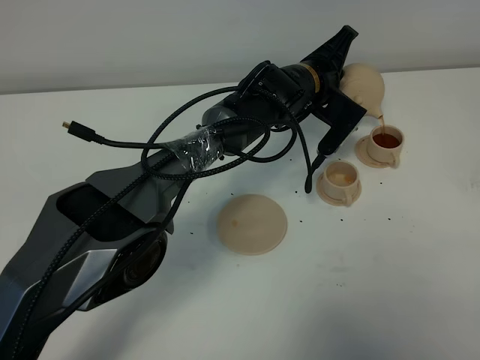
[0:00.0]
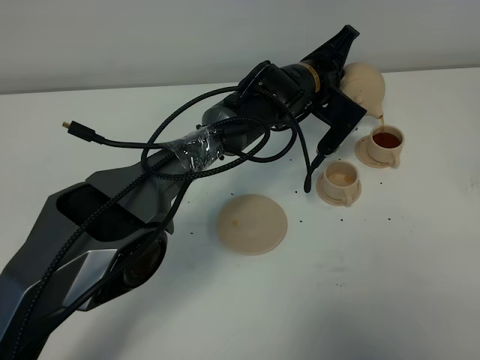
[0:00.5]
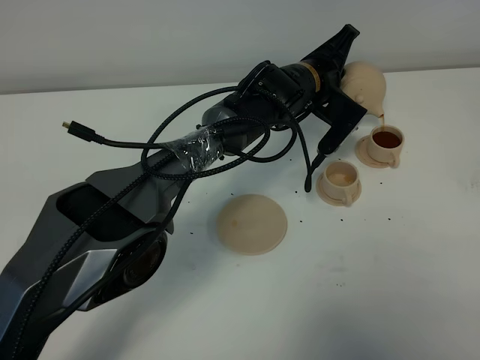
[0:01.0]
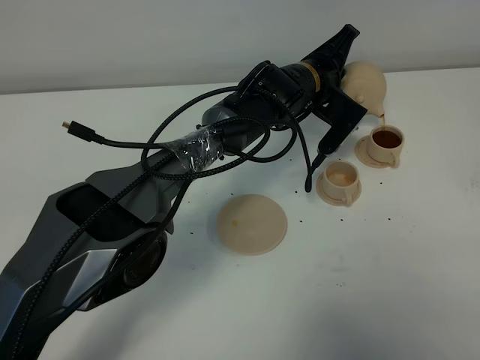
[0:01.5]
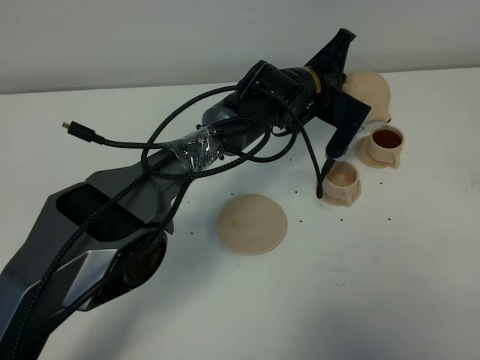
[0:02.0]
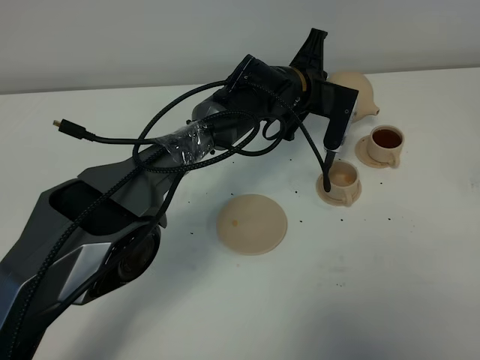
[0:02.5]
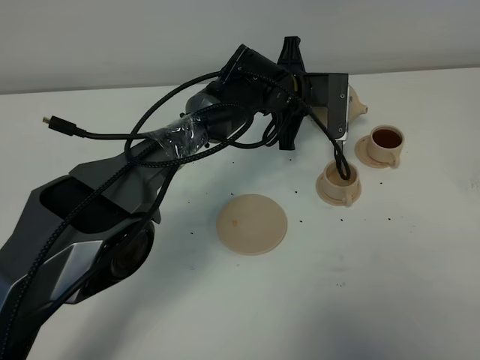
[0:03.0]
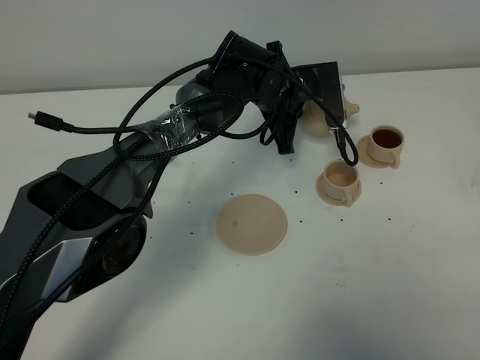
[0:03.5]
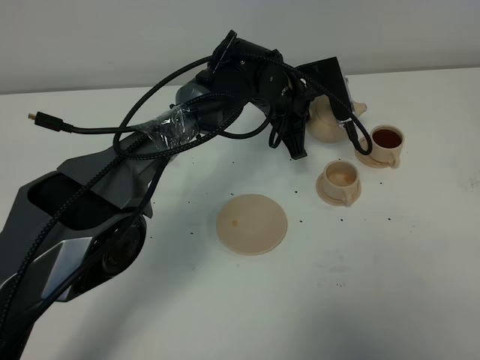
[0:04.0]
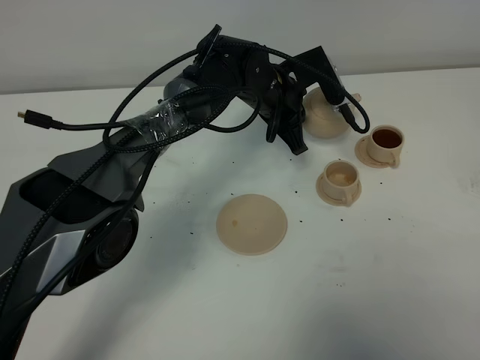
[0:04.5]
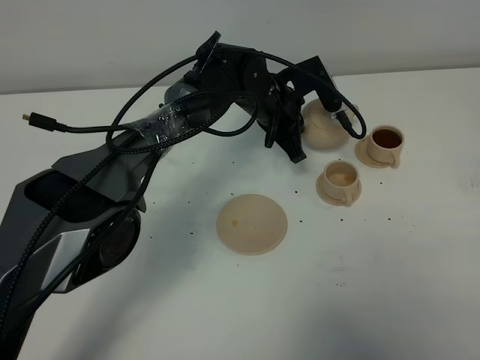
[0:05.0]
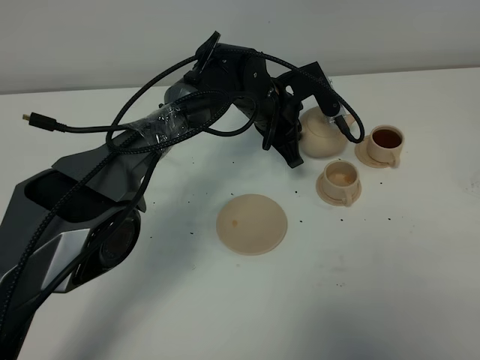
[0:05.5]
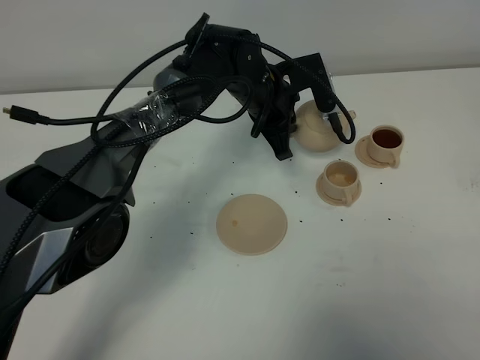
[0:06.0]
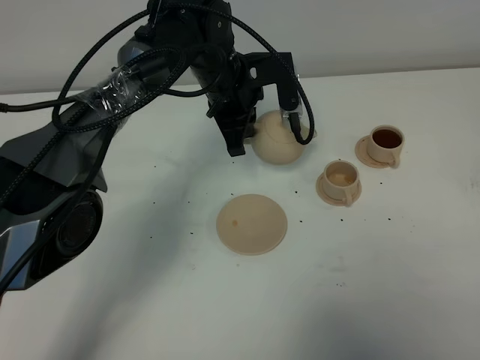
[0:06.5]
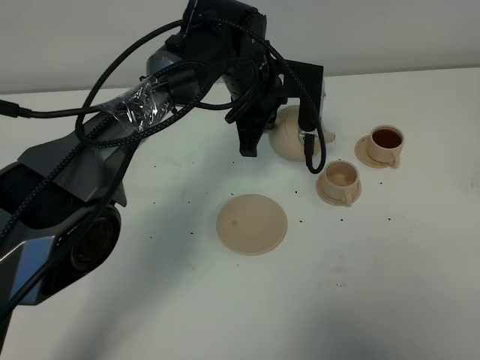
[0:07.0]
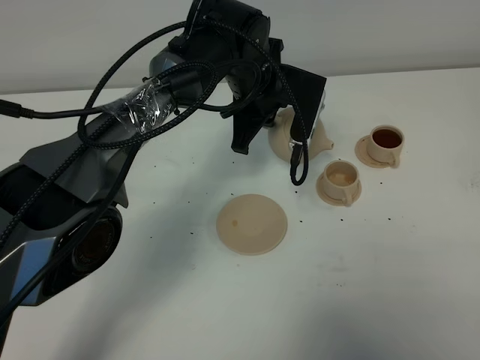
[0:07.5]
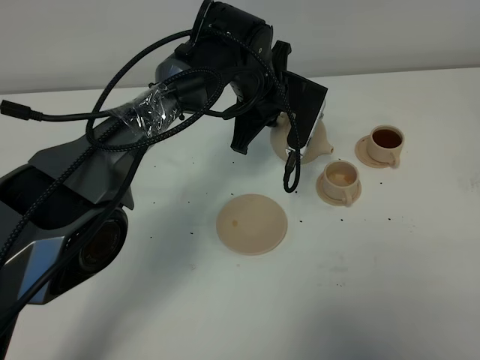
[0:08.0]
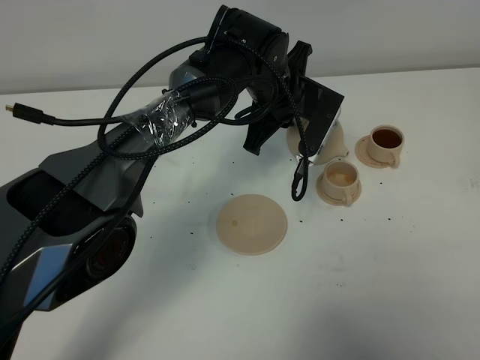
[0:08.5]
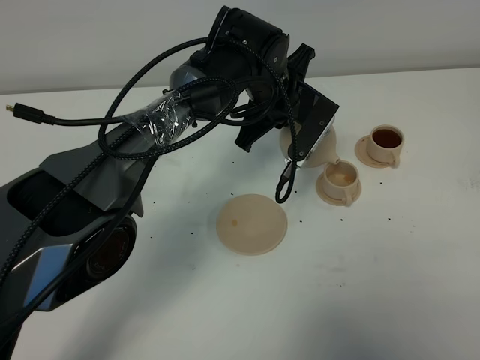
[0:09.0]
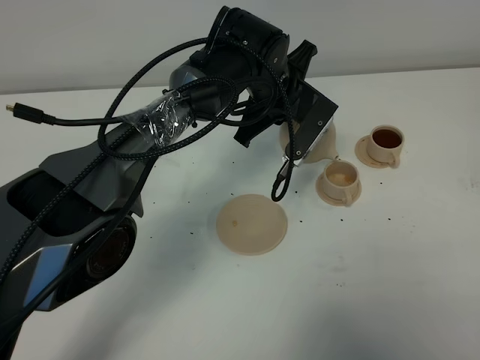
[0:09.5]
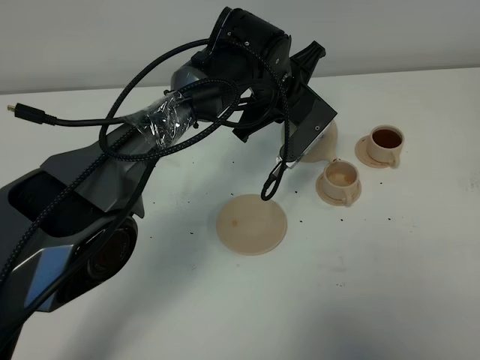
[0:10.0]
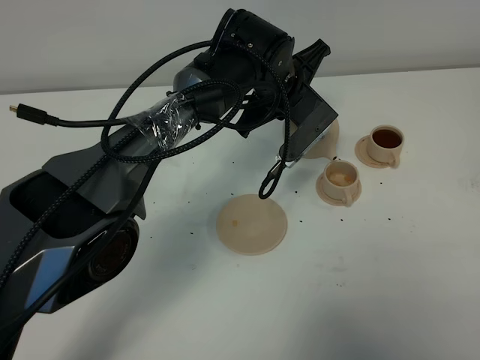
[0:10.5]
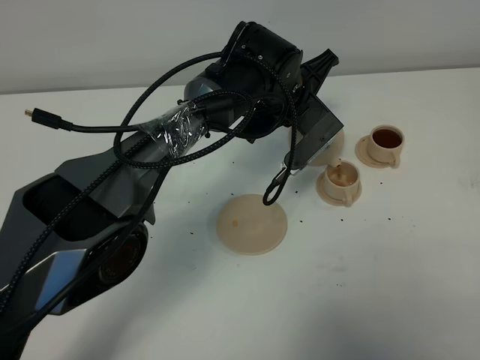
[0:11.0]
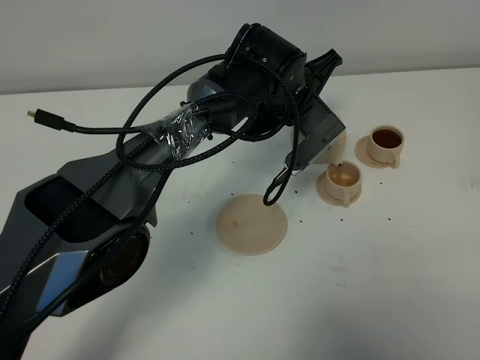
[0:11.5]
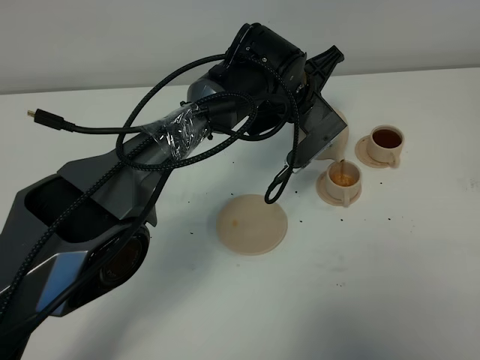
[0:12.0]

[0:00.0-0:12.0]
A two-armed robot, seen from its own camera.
Task of the whole recording: grasp the brown teapot and pour the tea into the two brown teacups one by one, put the brown teapot back in its original place.
0:00.0 to 0:02.0: There are only small adjustments of the grippers.
0:04.0 to 0:06.0: The grippers stay close to where they were, moving slightly.
0:10.0 to 0:12.0: There are only small adjustments of the grippers.

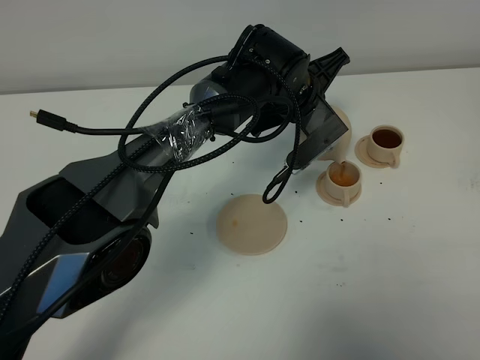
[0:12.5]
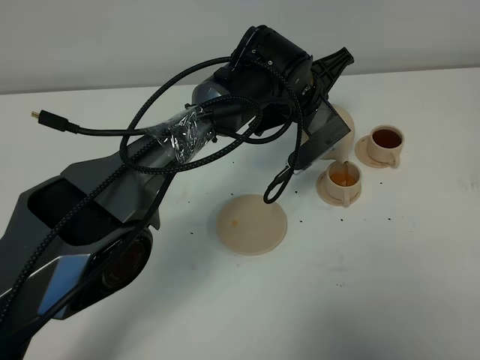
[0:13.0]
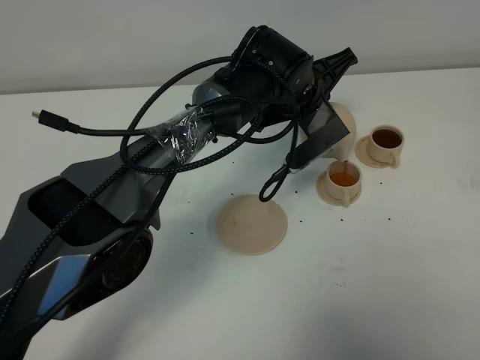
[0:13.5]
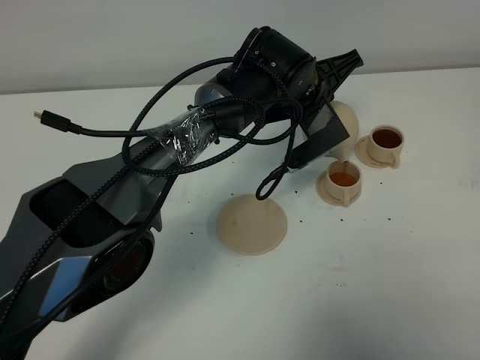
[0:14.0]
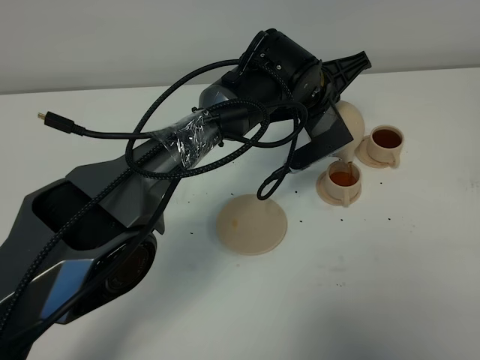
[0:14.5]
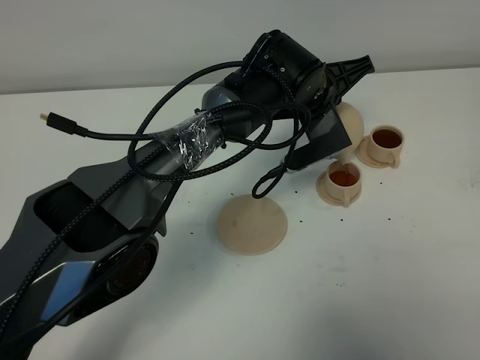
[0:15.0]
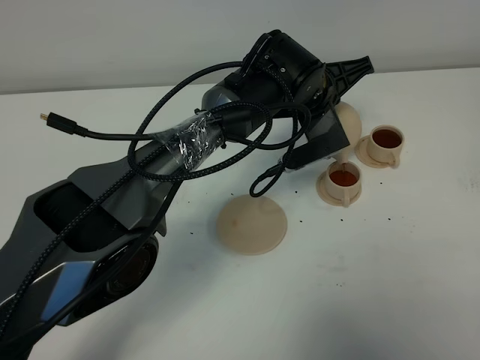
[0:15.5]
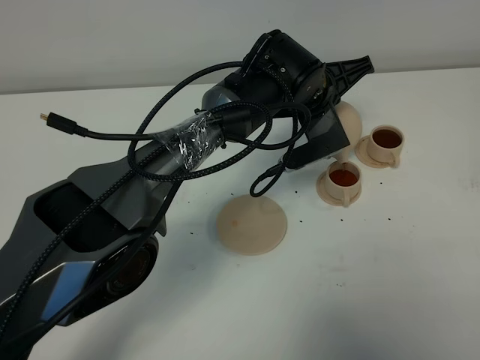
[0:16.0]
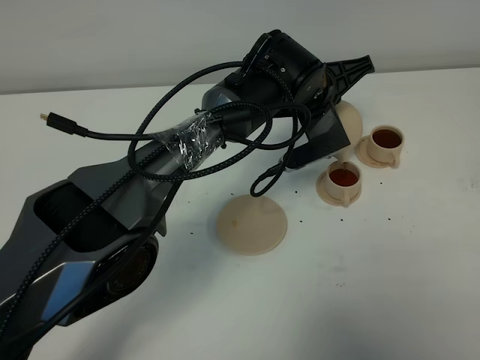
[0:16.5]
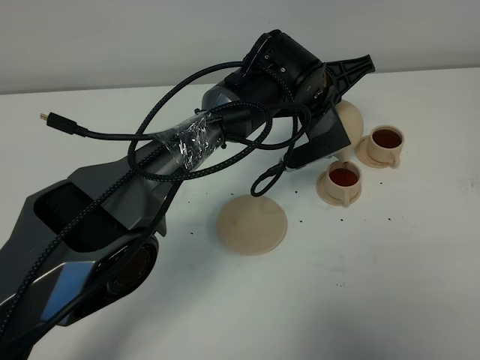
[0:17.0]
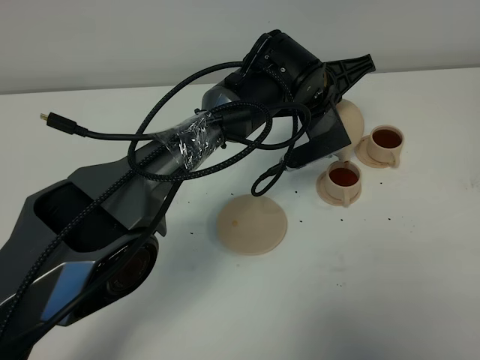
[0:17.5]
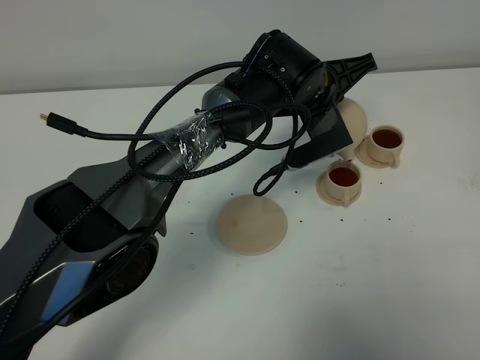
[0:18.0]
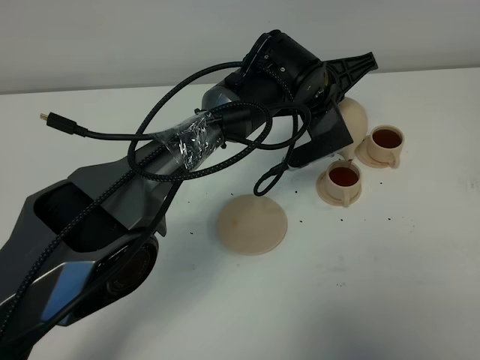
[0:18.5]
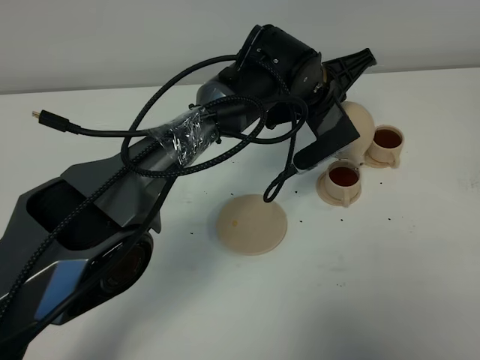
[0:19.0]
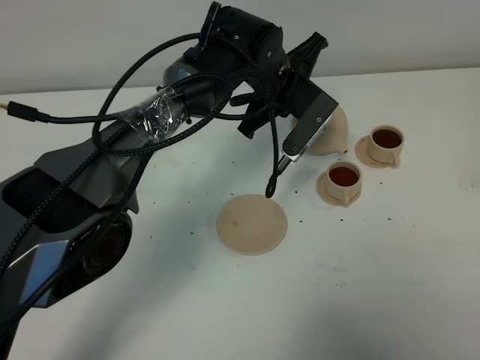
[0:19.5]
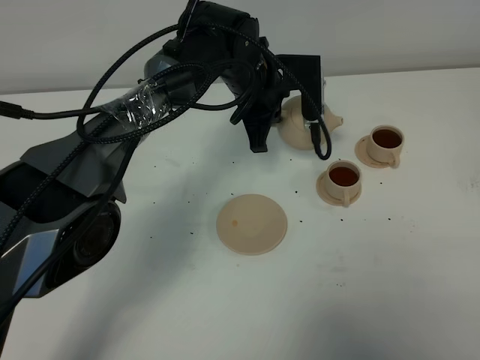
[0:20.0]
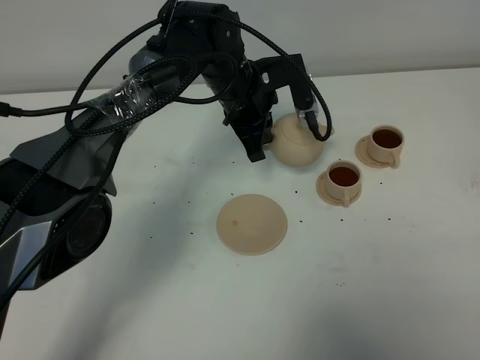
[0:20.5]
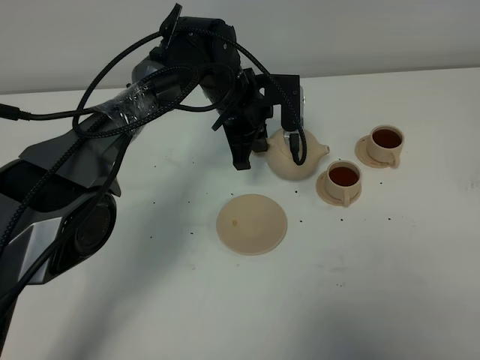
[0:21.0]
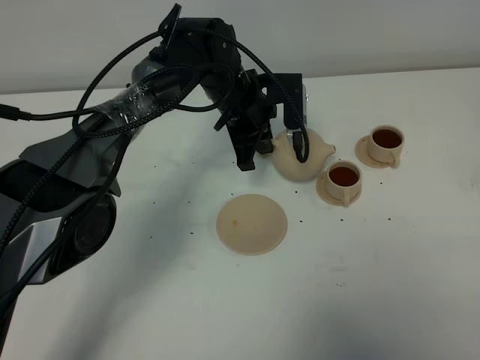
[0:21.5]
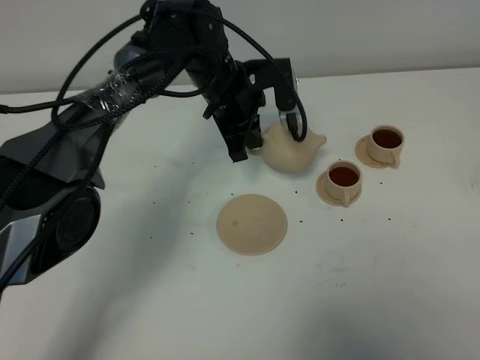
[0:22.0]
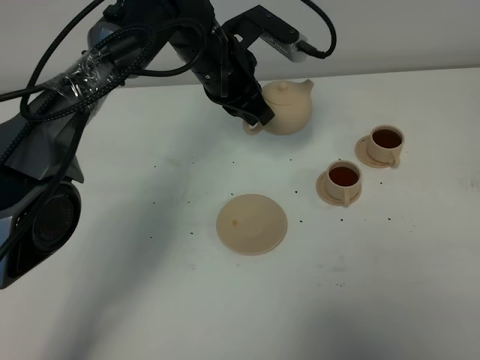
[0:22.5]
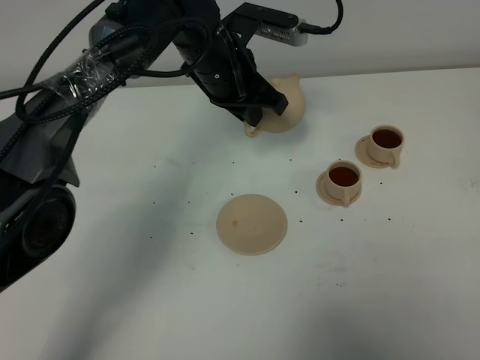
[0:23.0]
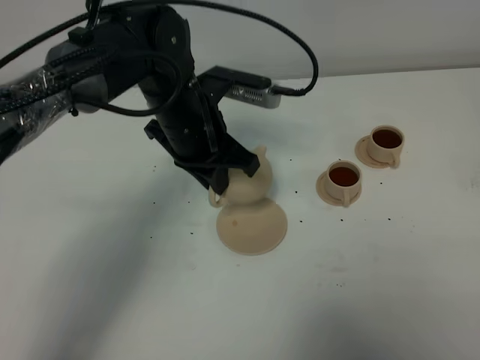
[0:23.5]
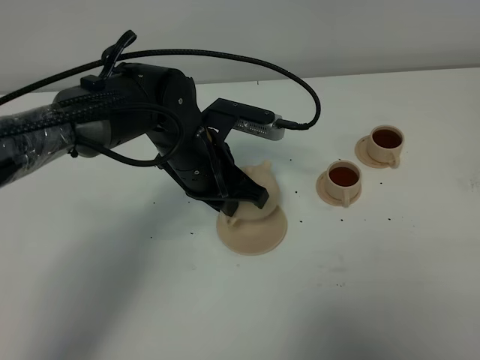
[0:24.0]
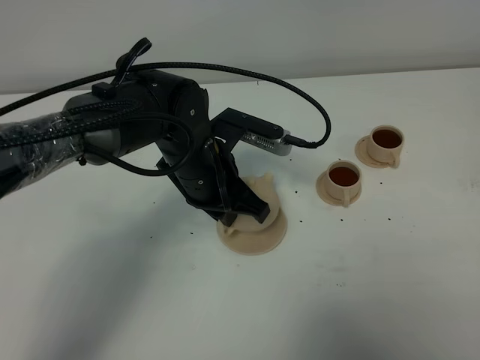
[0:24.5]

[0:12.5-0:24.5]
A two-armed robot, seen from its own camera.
Task of the whole recording: grasp the brown teapot and pour the tea into the two brown teacups one by one, put the brown teapot back in its original place.
Step, 0:12.5 to 0:19.0: Pour tea into the teacup with the left gripper.
0:12.5 to 0:16.5: There are only small adjustments of the grippers.
0:16.5 to 0:18.5: The two grippers keep their place.
0:18.5 to 0:20.5: The left gripper shifts about 10 cm to the left.
0:20.5 to 0:22.5: The left gripper moves roughly 5 cm.
0:22.5 to 0:24.5: The left gripper shifts some 15 cm backward and downward.

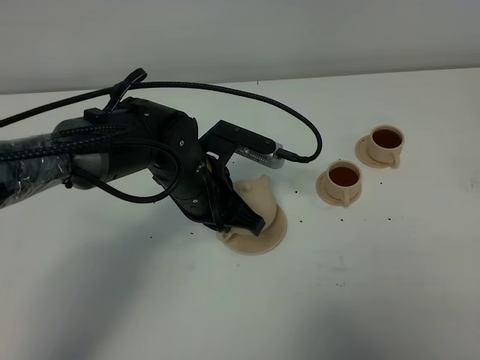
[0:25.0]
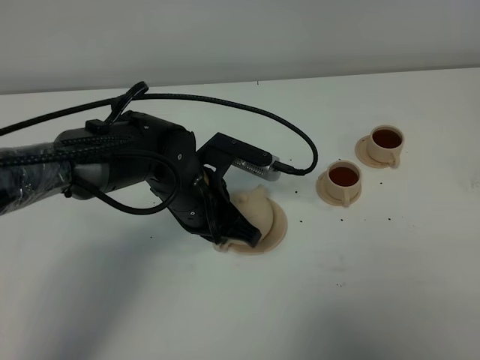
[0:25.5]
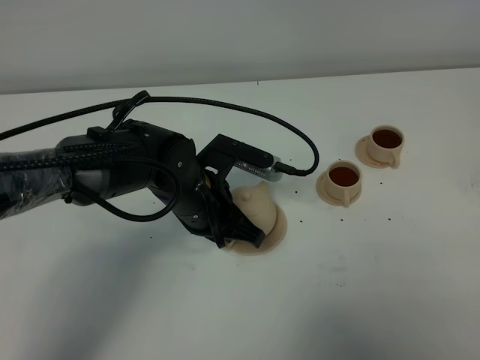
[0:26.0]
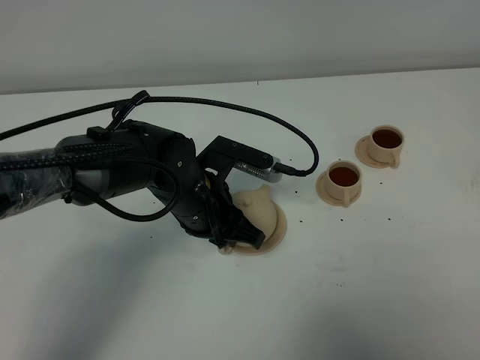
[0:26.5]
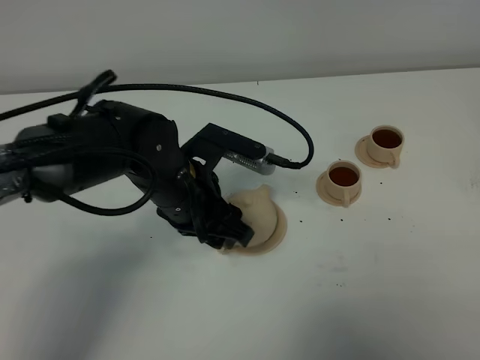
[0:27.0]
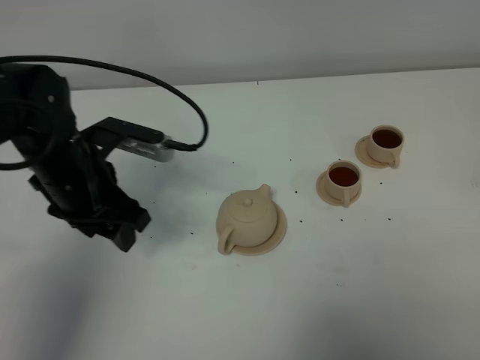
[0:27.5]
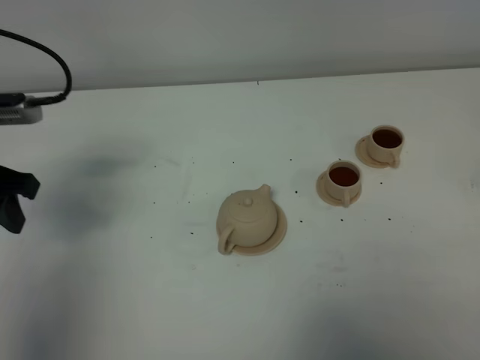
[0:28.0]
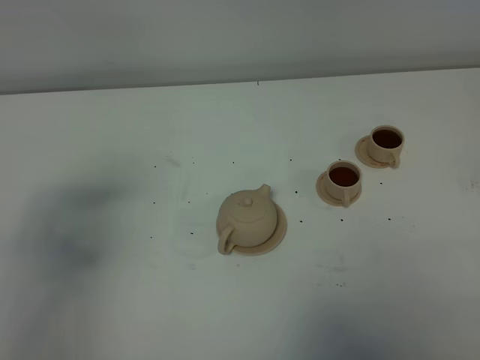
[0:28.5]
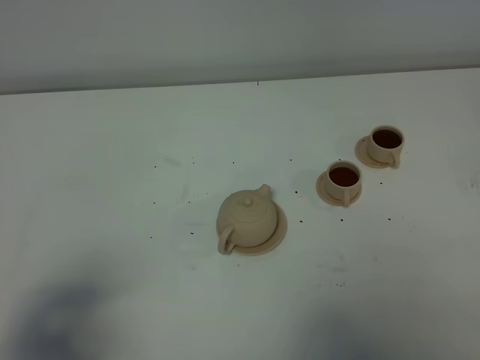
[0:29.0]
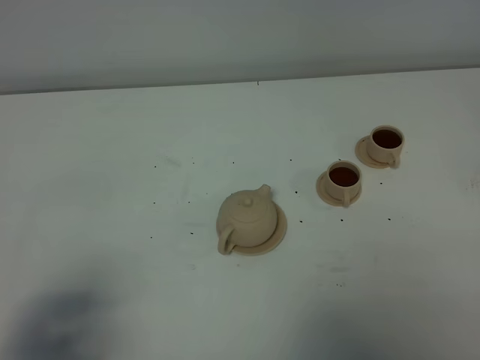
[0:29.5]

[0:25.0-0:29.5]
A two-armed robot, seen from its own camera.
Task of the whole recording: grasp the brown teapot and pour the tea into the two brown teacups one by one, put the brown teapot back in its original place.
0:25.0 to 0:27.0: The left gripper opens up.
0:27.0 to 0:29.5: The left gripper heads backward and to the left, covering some 30 cm.
